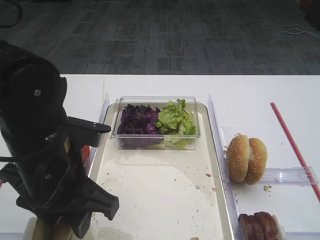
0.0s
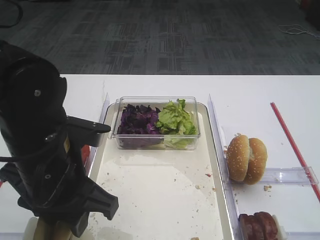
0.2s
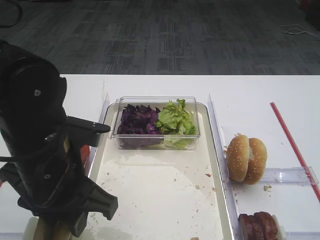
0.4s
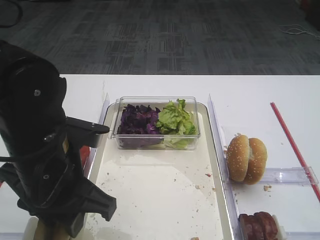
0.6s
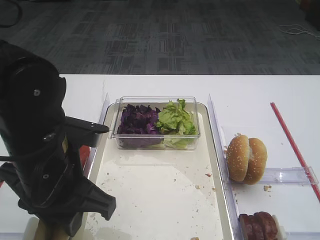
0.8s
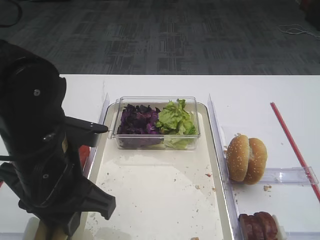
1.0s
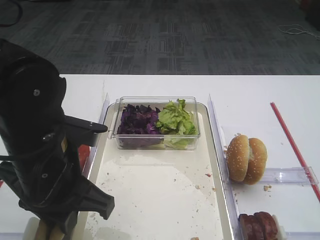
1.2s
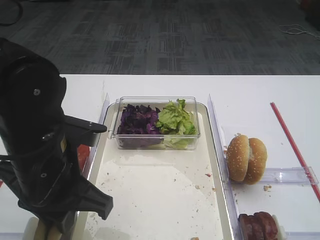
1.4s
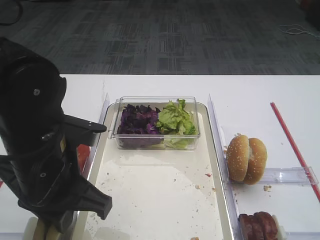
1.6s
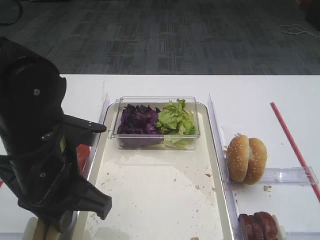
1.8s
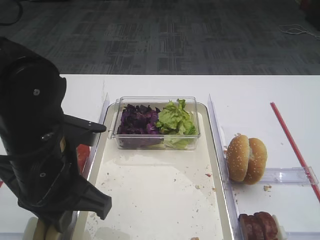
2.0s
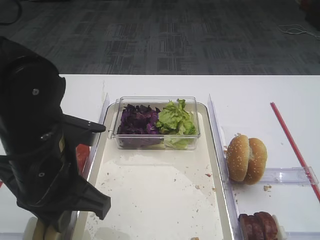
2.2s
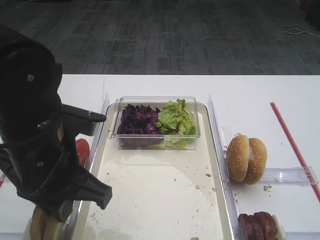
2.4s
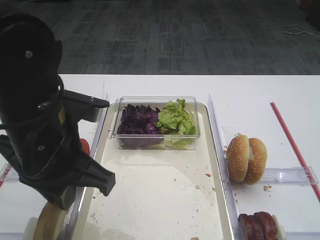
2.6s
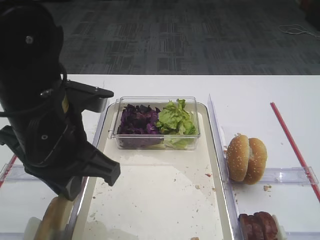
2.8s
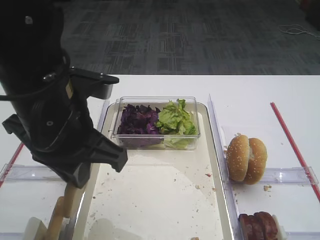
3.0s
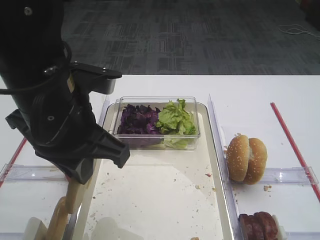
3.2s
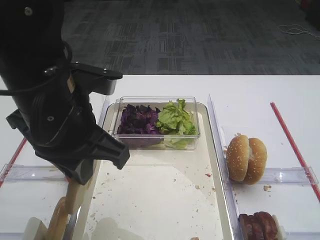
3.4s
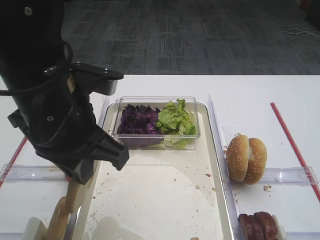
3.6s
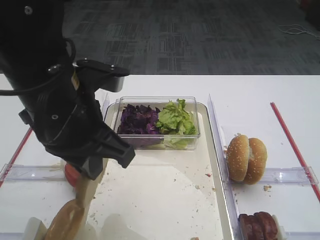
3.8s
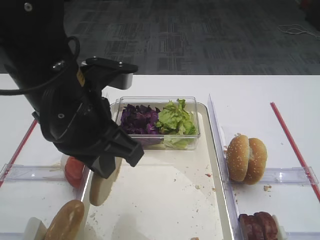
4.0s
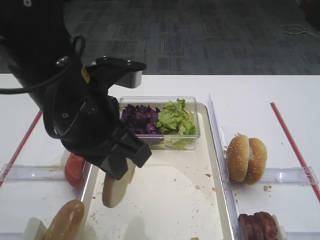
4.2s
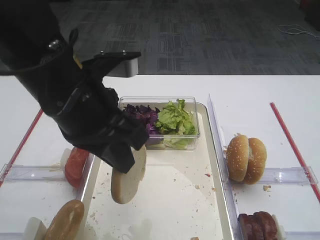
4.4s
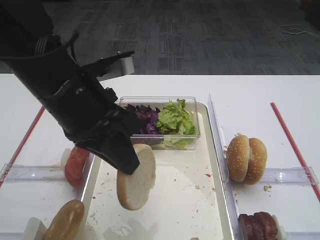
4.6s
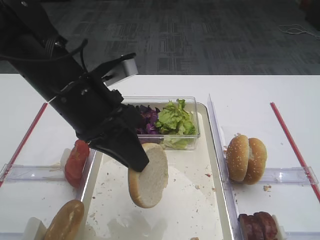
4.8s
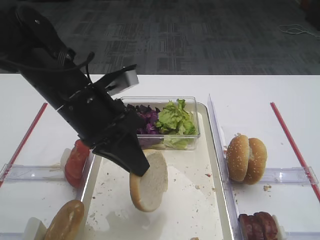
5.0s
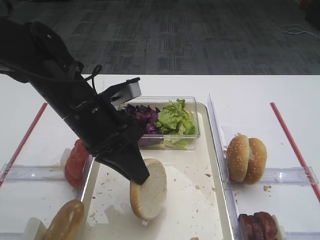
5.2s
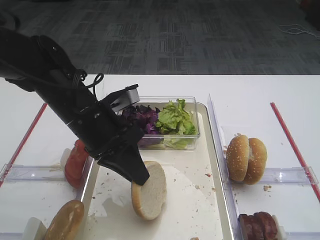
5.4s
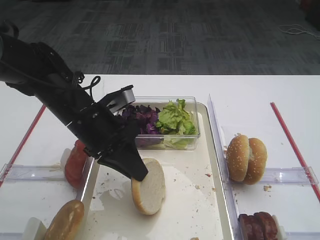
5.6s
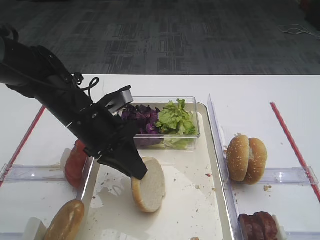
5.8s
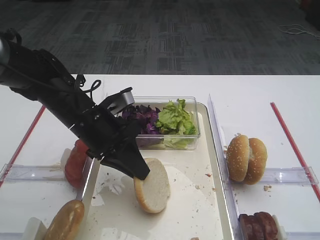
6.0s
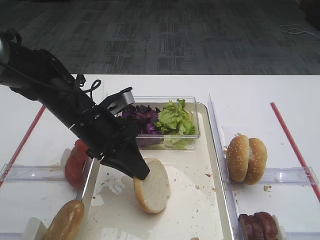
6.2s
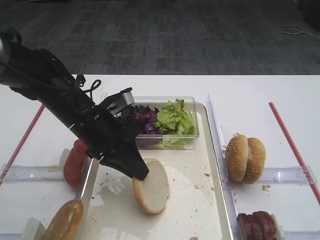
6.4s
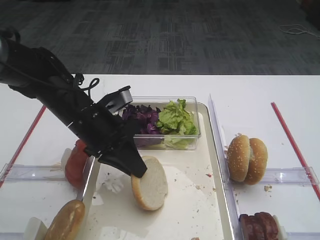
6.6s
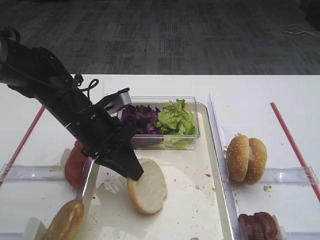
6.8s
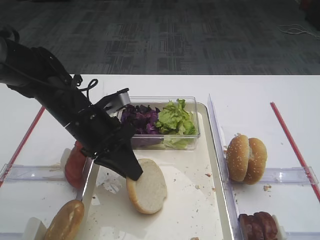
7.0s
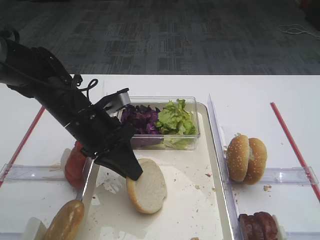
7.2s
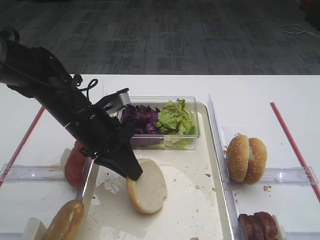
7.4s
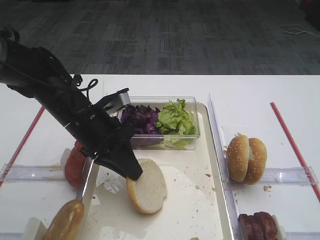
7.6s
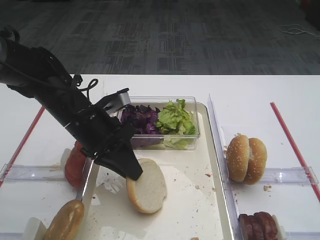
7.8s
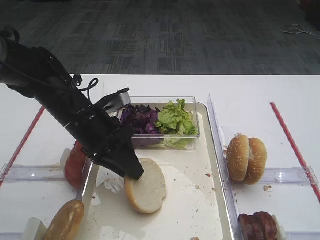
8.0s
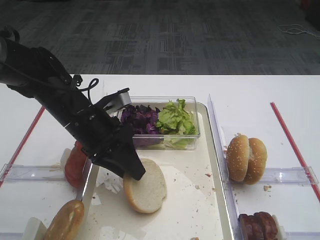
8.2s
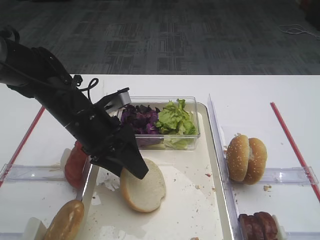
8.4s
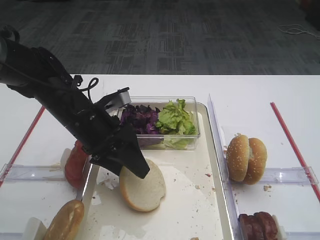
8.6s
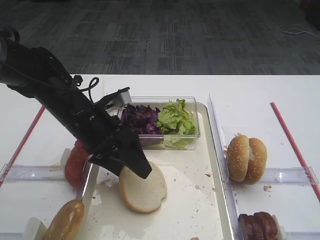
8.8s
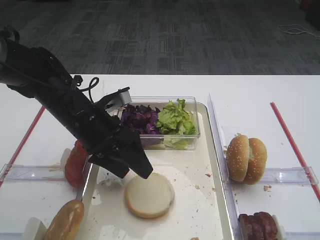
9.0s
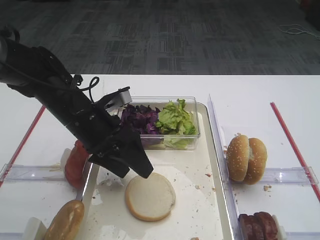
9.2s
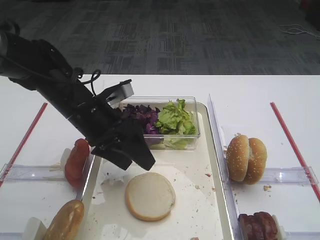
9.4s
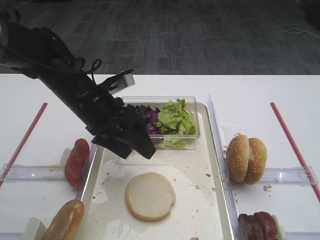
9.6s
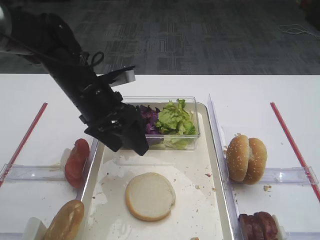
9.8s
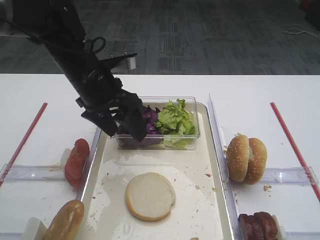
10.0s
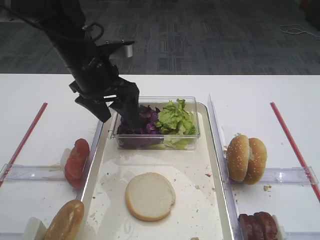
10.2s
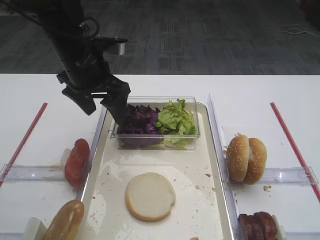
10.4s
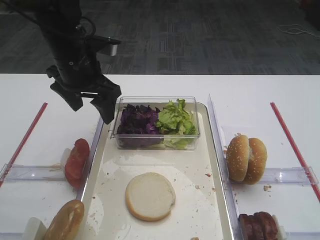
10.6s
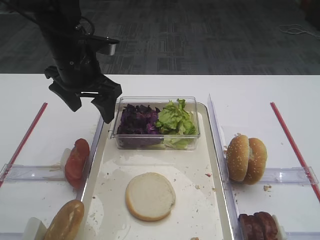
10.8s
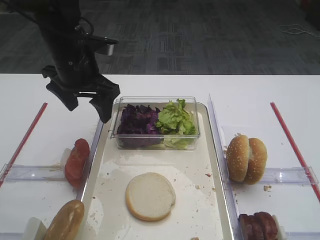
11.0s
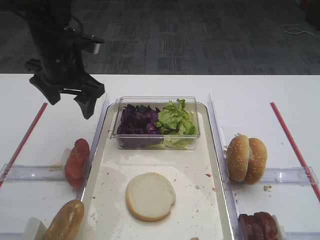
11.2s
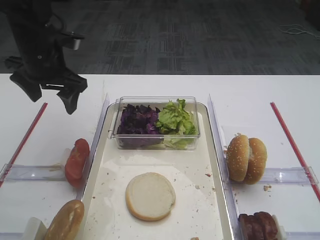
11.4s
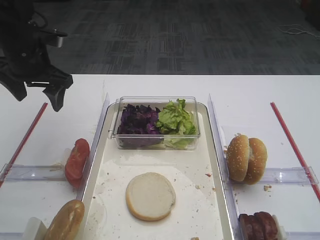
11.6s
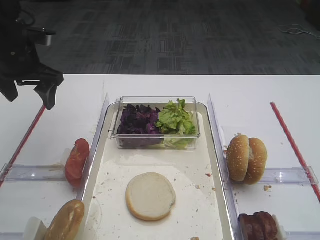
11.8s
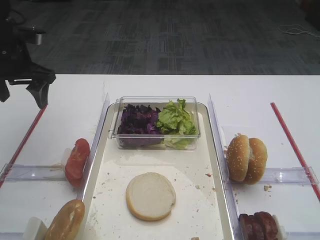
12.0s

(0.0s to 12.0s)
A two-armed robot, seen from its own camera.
Step, 0.0s - 2.8s: Pick up the bread slice with the left gripper.
Step, 3.0s - 9.4s: Place the bread slice on the tray with the left gripper.
0.0s - 1.6s: The left gripper closes up.
1.6s - 3.0s: The left gripper moves upward, about 5 cm.
4.4s - 6.0s: The left gripper travels downward and forward by some 15 cm.
6.0s - 7.6s: The two grippers keep their place.
7.6s - 9.0s: The left gripper opens its fingers.
9.0s - 10.4s: The left gripper is displaced upward and forward by some 10 cm.
10.4s - 12.0s: The left gripper heads to the left, covering about 15 cm.

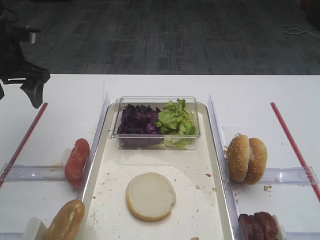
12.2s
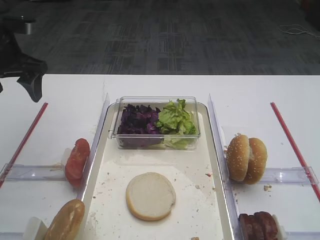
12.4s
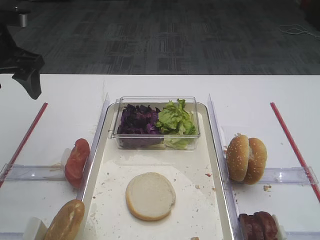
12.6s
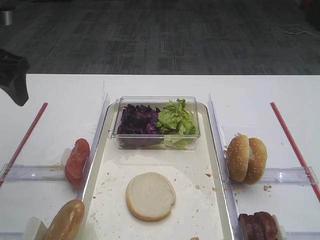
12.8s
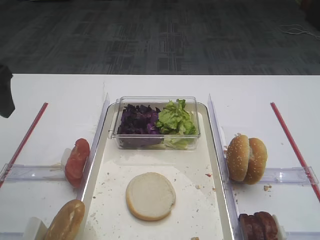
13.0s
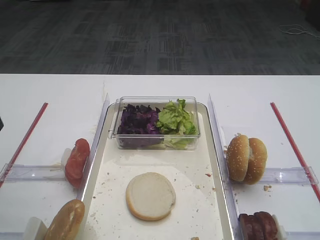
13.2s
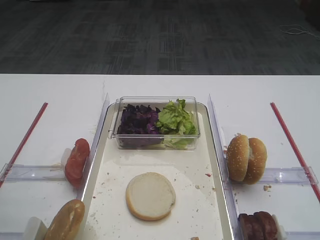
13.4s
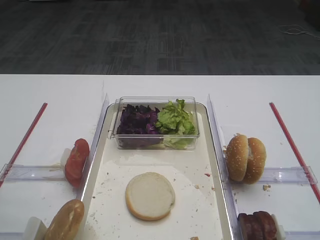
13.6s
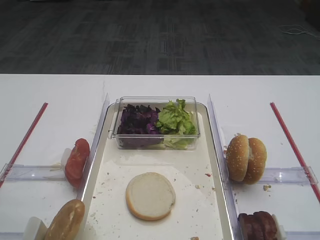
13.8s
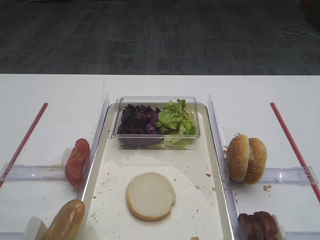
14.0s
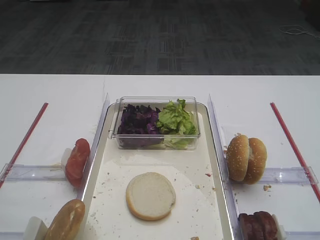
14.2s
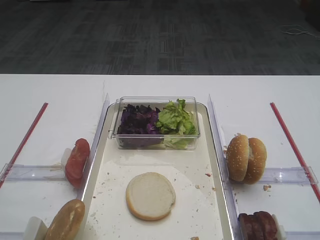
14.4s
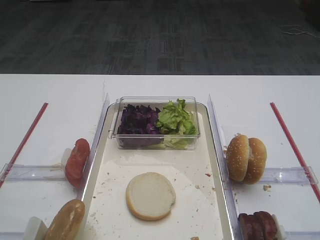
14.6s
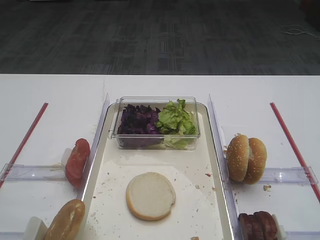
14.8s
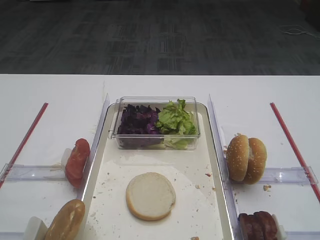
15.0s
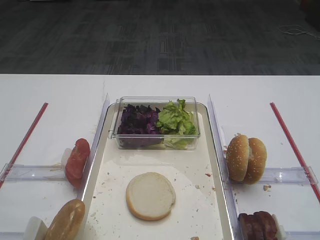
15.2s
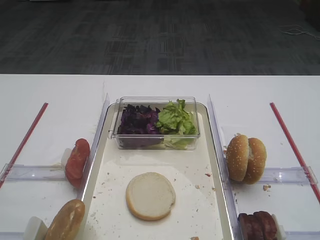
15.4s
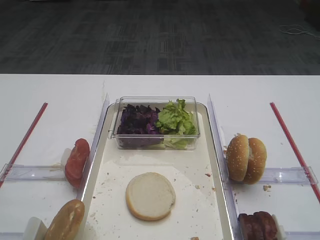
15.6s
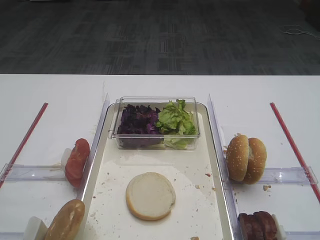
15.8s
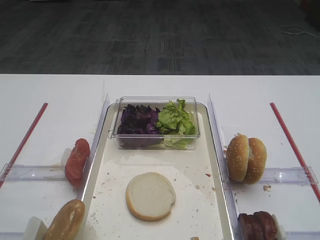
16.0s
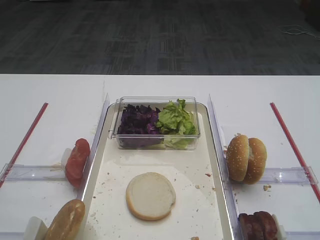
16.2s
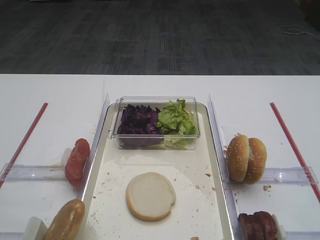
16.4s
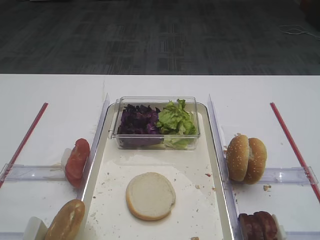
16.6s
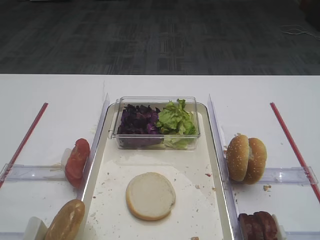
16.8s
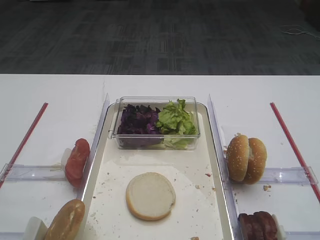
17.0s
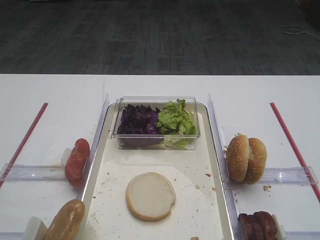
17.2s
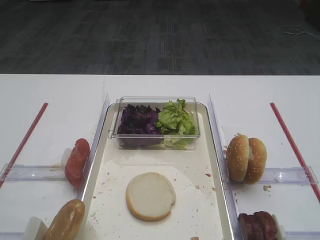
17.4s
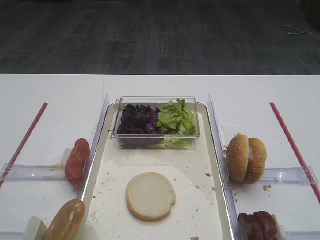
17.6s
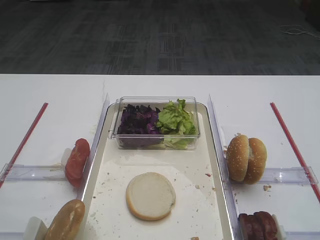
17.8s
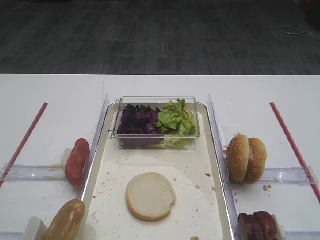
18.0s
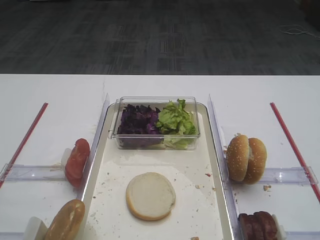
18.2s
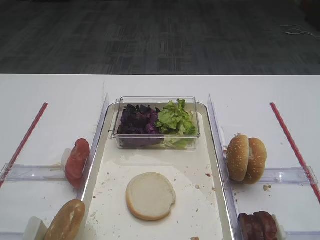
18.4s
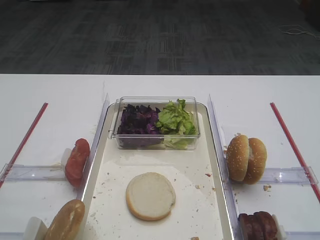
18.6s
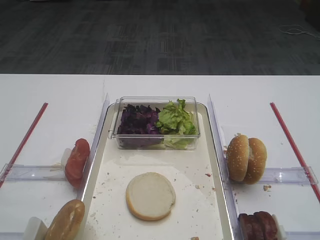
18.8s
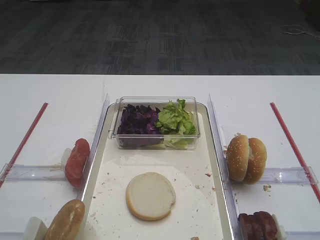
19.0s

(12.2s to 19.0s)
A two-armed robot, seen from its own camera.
12.2s - 13.6s: The left gripper moves backward, roughly 25 cm.
15.0s - 19.0s: Both grippers stay about where they are.

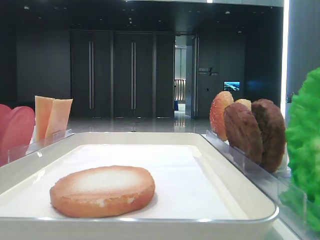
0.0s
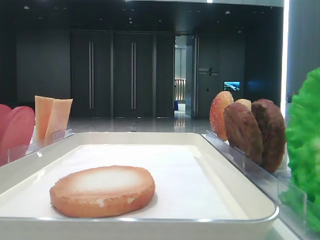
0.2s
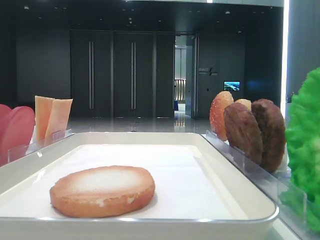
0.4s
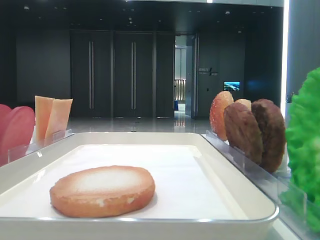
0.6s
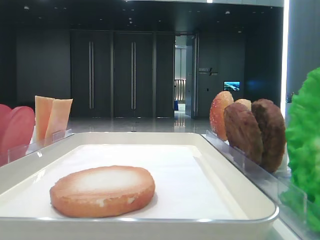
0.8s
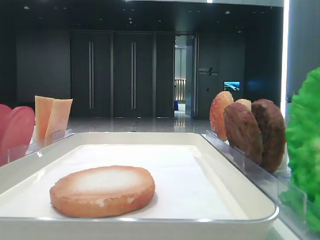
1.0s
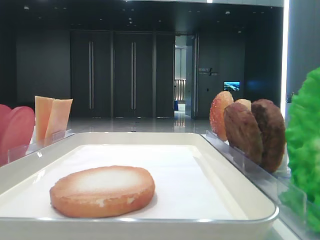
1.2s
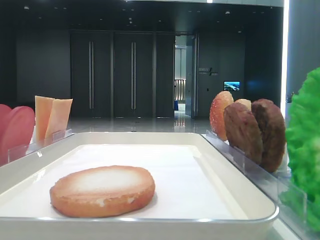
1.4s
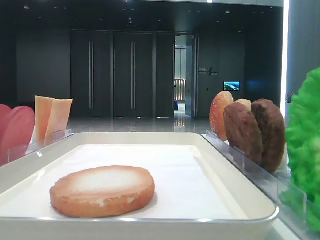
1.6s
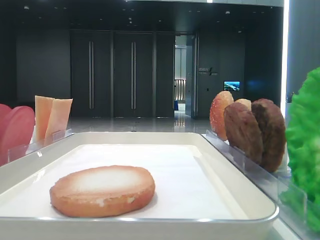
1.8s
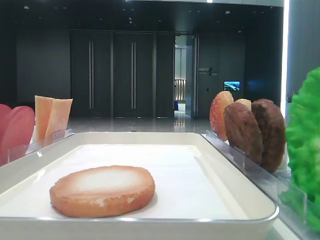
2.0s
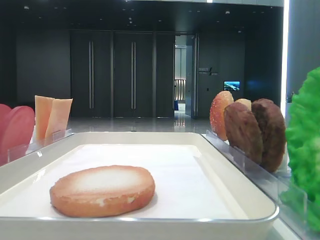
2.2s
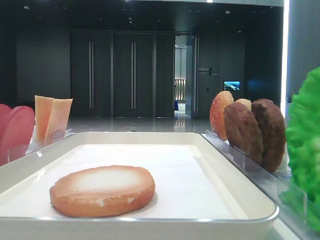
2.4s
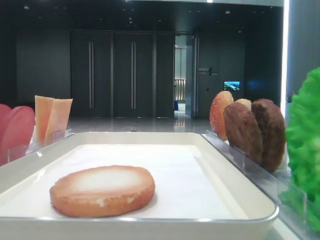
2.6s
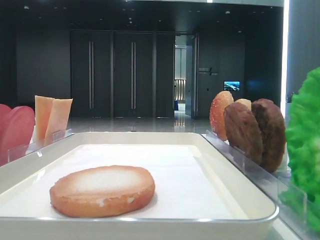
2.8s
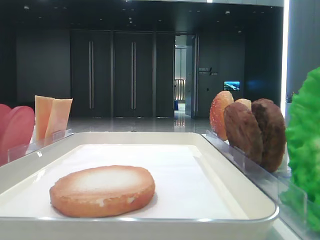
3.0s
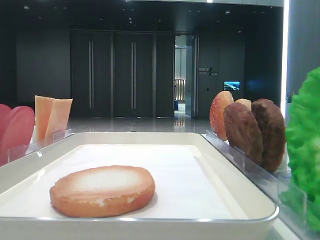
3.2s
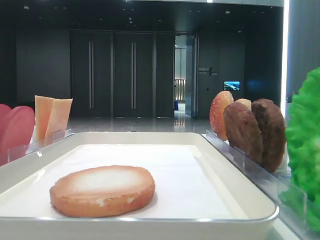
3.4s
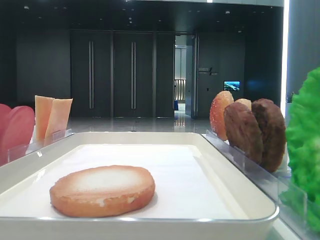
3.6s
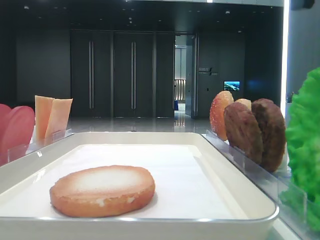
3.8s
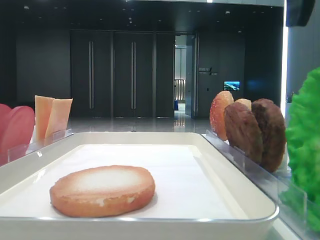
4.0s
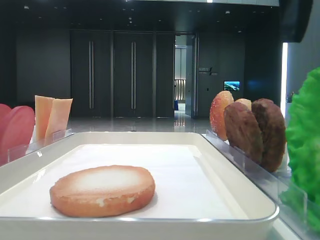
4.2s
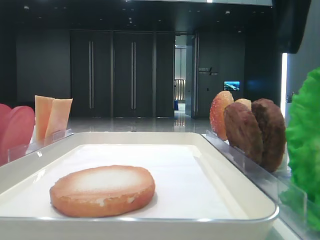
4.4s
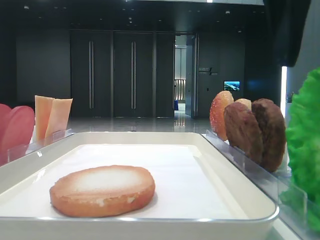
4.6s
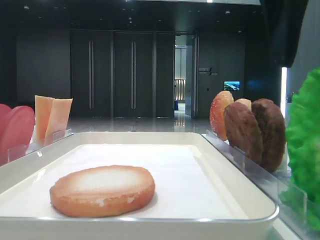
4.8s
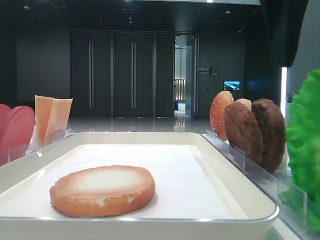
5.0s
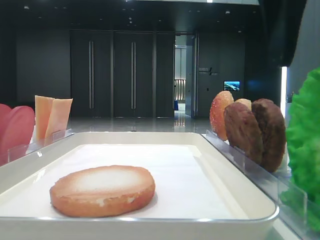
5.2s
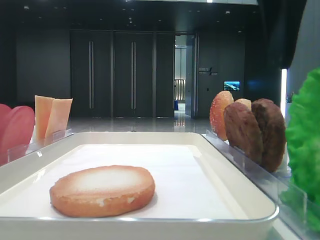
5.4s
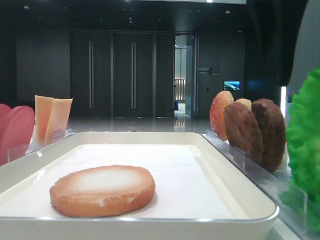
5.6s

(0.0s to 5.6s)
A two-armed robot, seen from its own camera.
2.8s - 4.2s: The right gripper shifts about 15 cm to the left and downward.
4.2s - 5.6s: The grippers move only a little.
